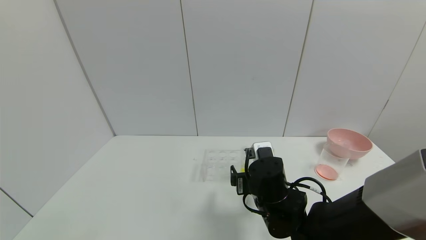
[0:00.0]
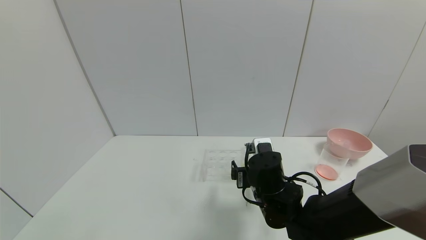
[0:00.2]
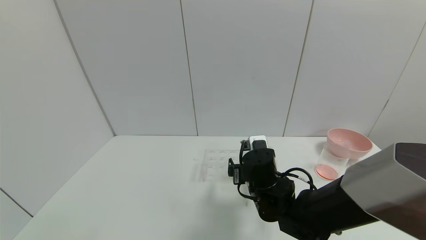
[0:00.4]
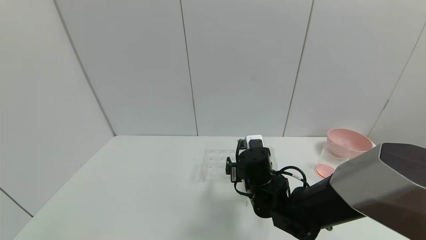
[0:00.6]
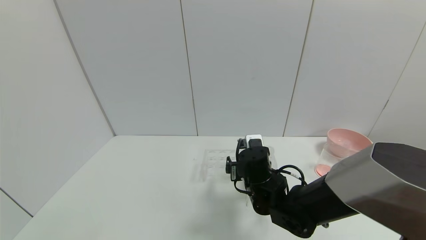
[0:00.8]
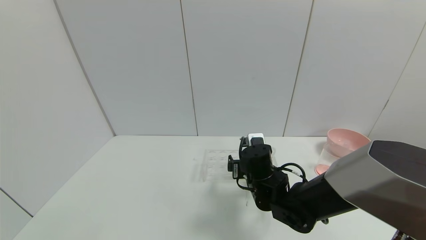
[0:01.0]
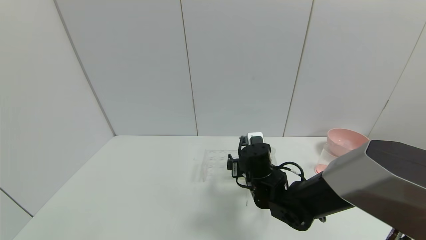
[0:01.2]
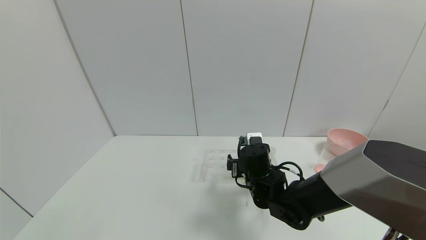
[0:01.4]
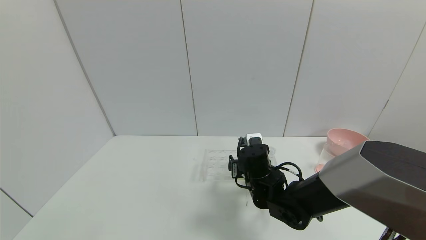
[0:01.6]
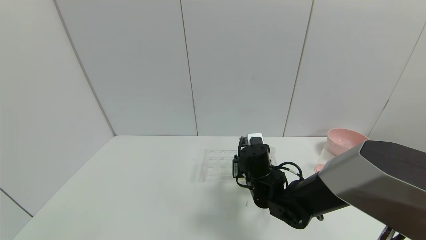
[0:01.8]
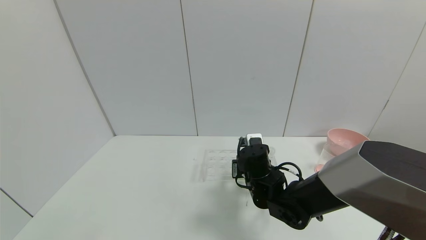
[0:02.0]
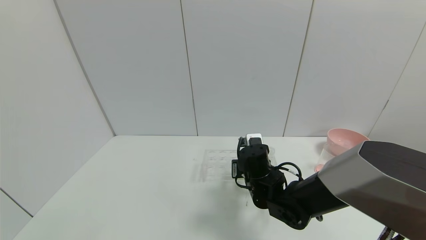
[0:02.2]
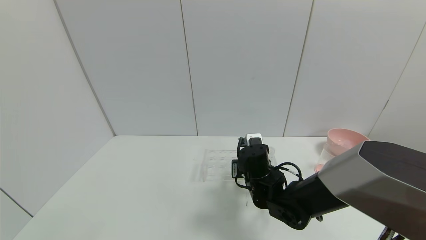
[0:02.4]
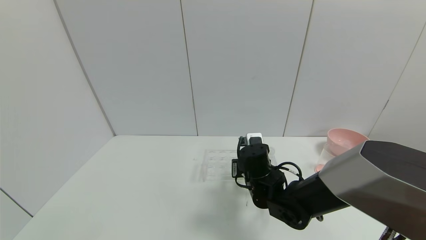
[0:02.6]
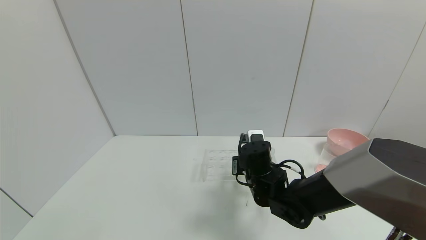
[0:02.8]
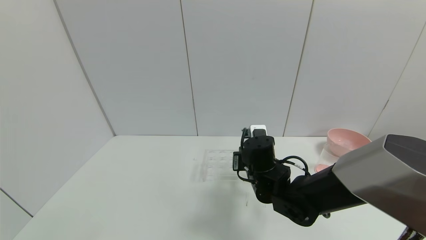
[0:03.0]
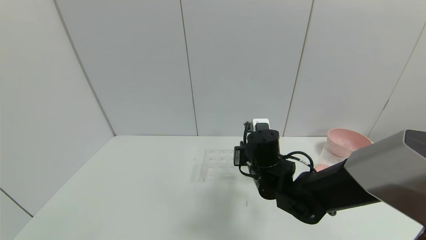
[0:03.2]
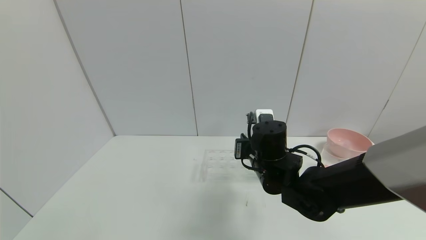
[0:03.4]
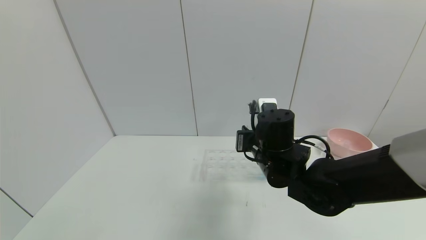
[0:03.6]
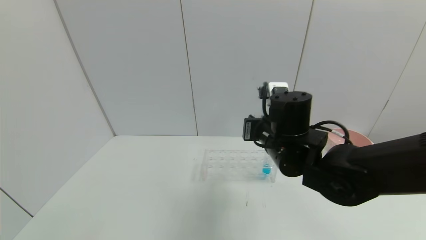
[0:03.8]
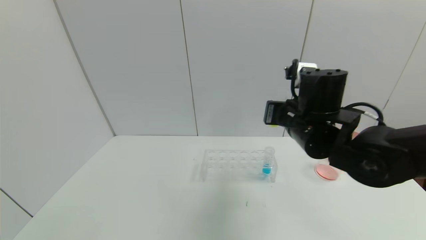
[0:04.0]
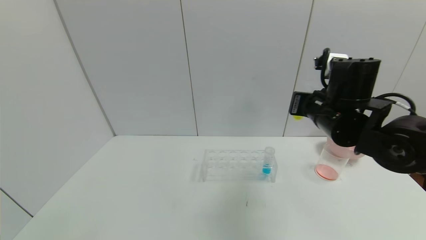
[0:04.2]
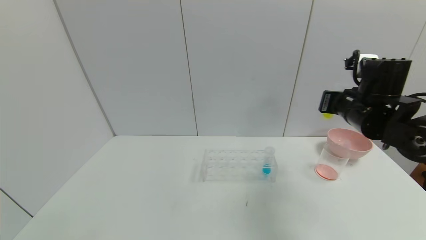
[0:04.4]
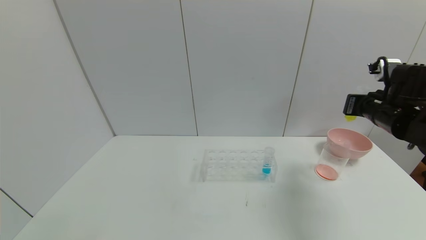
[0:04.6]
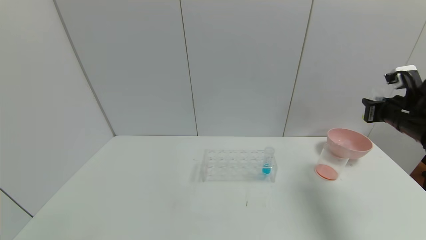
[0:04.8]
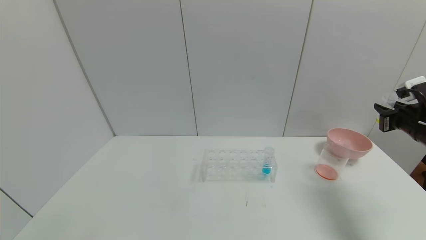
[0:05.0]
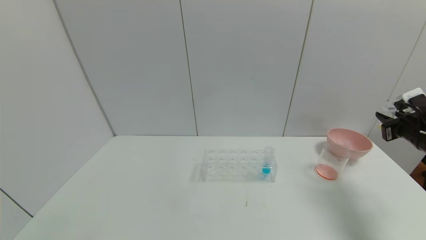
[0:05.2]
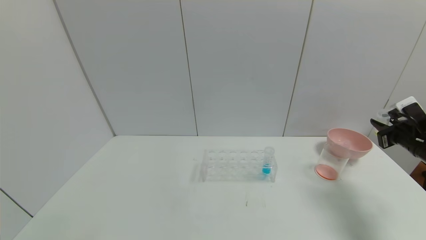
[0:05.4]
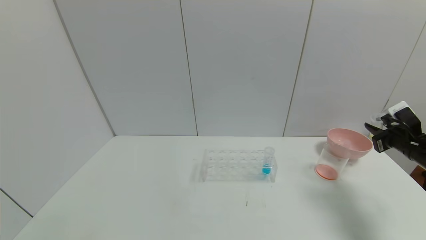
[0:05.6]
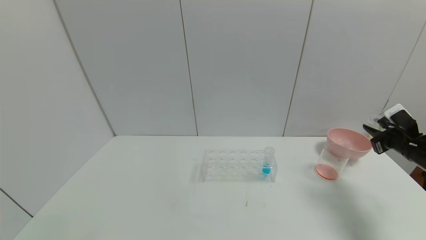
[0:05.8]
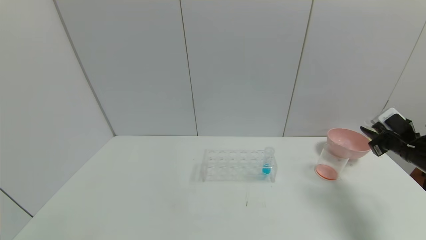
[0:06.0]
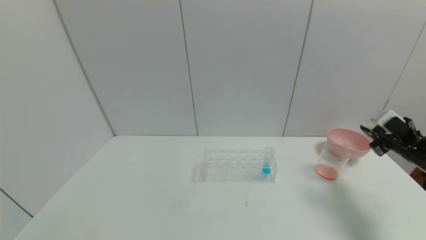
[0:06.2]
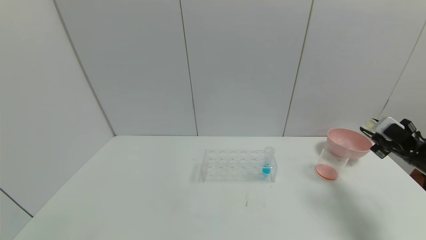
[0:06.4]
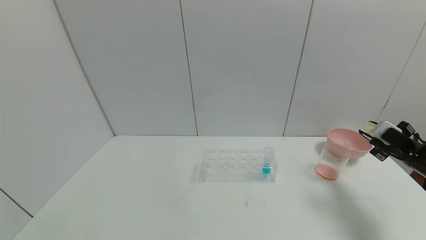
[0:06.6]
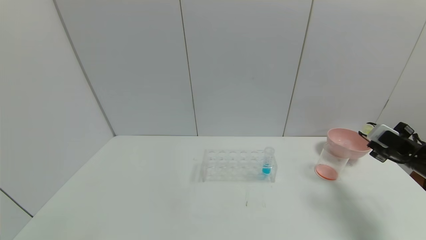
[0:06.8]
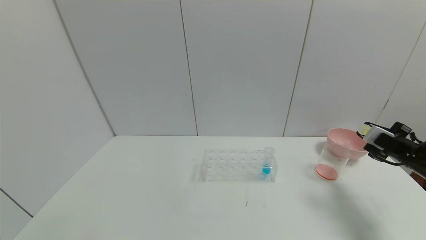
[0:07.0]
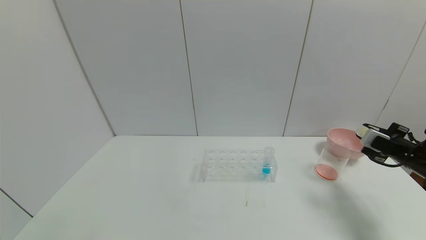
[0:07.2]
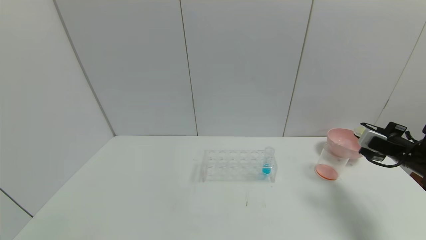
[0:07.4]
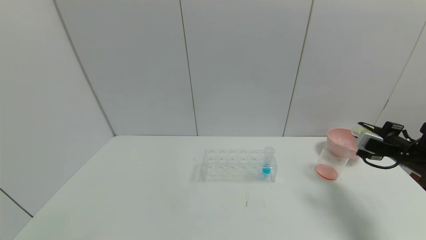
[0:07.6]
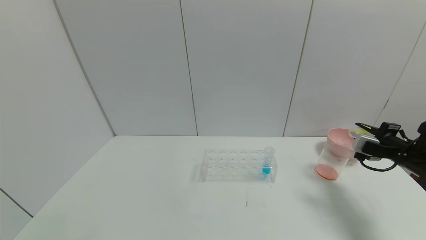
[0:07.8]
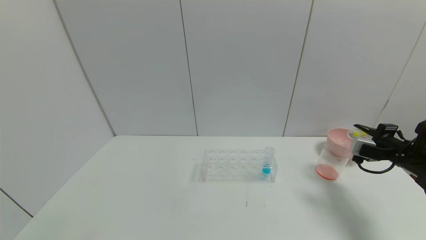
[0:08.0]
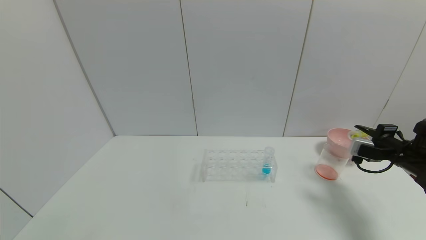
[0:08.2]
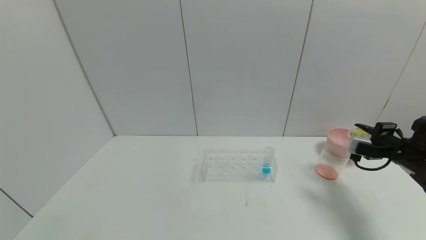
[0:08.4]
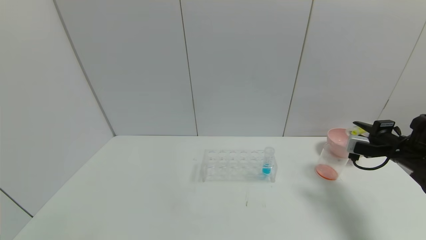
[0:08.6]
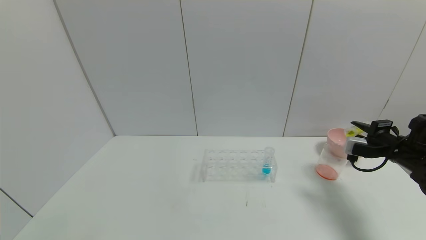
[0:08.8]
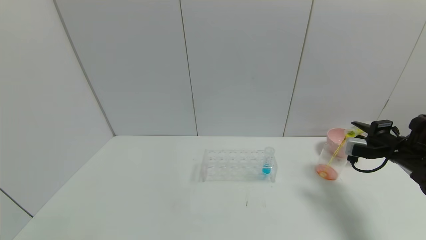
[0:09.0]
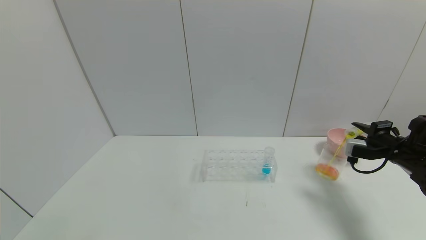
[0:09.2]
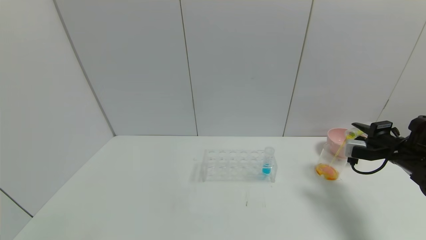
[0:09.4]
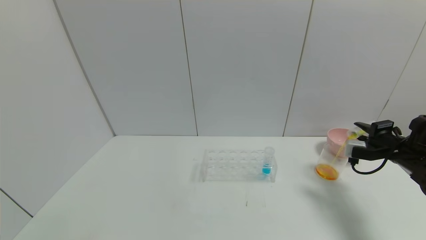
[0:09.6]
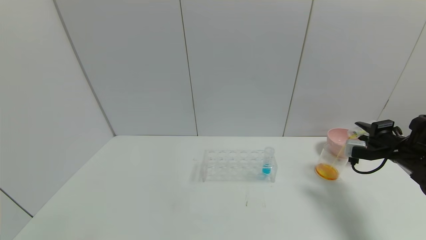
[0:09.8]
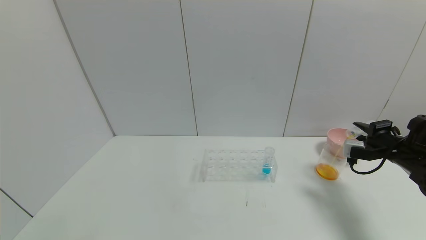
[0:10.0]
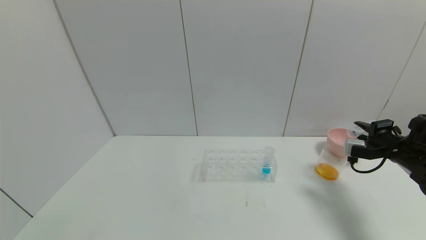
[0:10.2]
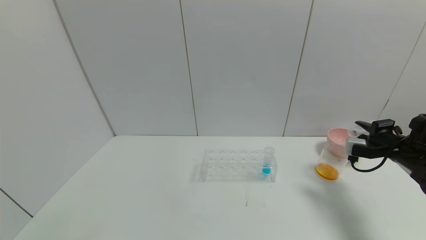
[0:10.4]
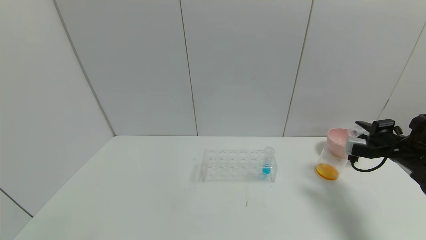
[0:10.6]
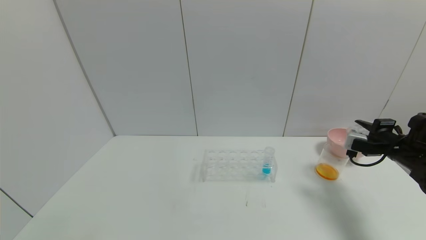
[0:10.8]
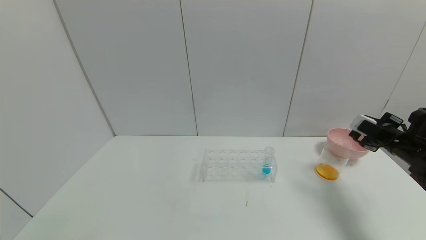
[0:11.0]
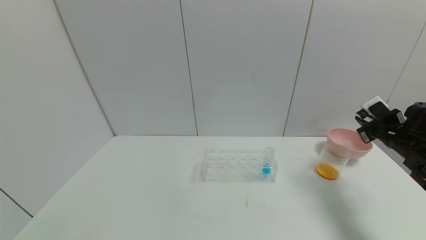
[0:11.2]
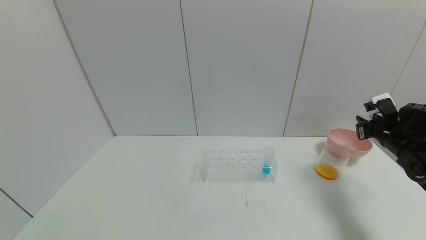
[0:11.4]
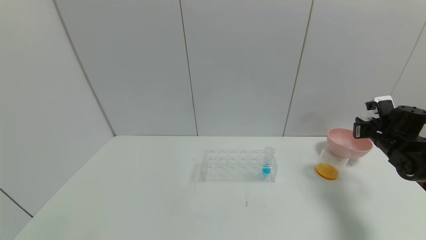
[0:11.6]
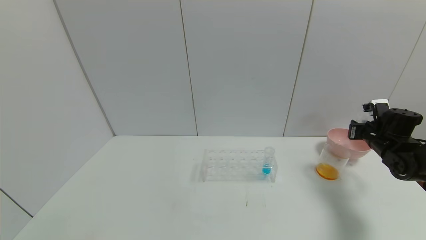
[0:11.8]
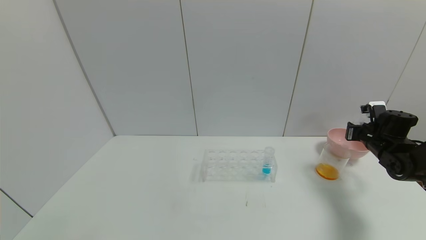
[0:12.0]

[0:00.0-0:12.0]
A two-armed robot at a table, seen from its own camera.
Task of the whole recording: pick up the test tube with yellow pigment and the test tube with red pigment by grippers and pour them into the beaker.
Step, 0:00.0 to 0:02.0: Grasp the yellow reagent with the right gripper.
Step, 0:02.2 to 0:10.6: Pour the yellow reagent into the graduated cylinder with the right gripper.
0:00.0 to 0:01.6: The right gripper travels forward by roughly 5 cm.
0:01.6 to 0:03.0: The right gripper closes.
0:03.0 to 0:04.4: The right gripper heads to the right and upward, covering some 25 cm.
0:04.4 to 0:06.0: The right gripper shifts approximately 20 cm to the right and downward.
0:07.6 to 0:09.0: The grippers move only a little.
0:10.4 to 0:12.0: The right gripper moves forward, roughly 5 cm.

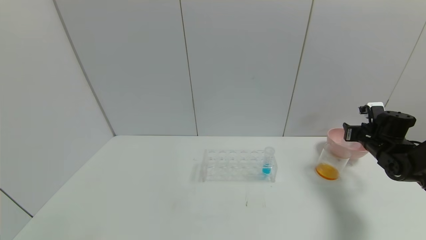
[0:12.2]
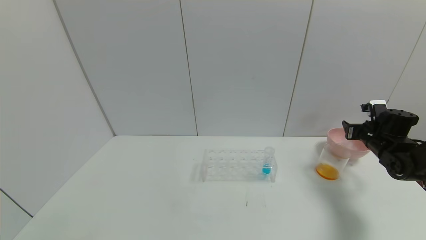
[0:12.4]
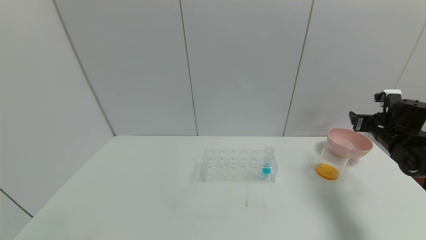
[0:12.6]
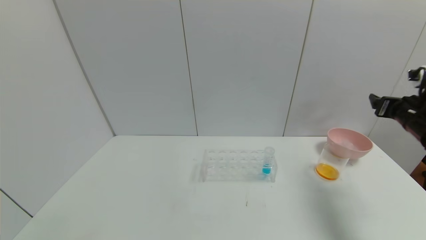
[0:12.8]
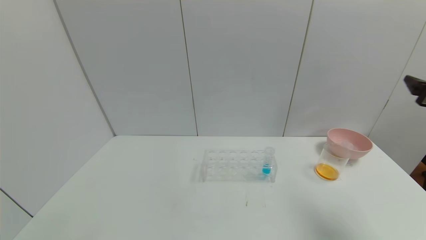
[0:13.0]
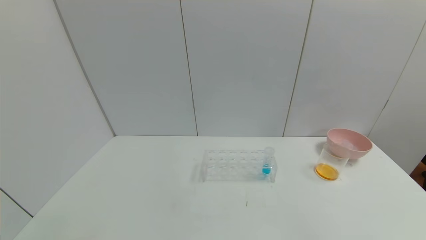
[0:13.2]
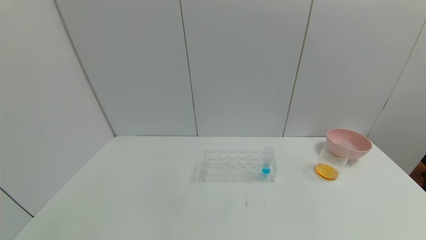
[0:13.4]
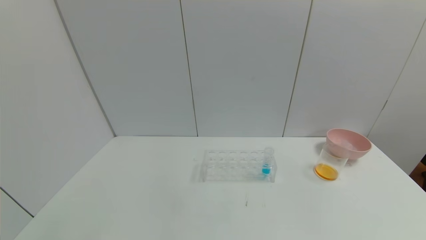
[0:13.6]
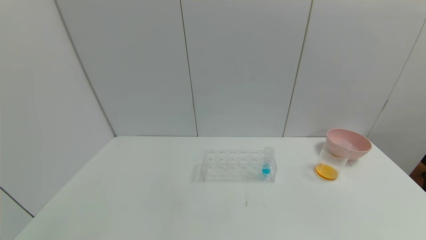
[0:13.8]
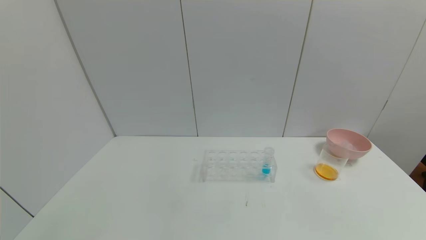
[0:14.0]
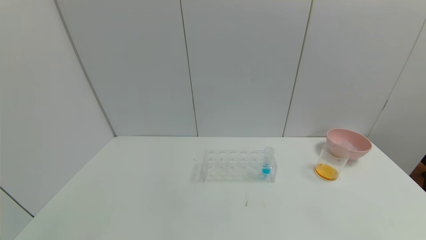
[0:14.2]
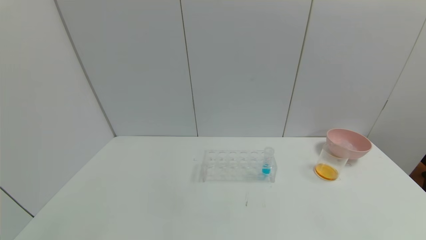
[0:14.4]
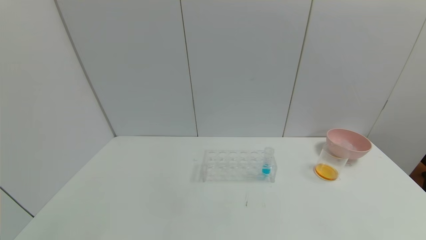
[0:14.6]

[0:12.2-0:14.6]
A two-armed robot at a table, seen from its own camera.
Task of the whole recording: pick up the test tube with yellow pigment and the test tube with red pigment by grippers and pour them into the beaker.
0:12.2 to 0:13.4: The right gripper moves backward and upward, approximately 40 cm, and opens.
